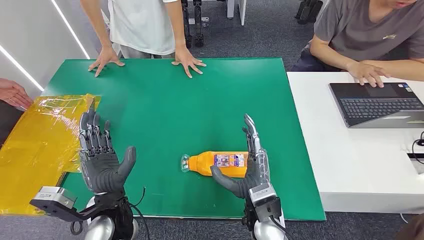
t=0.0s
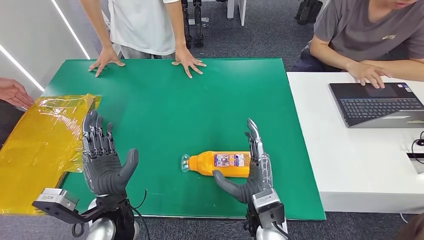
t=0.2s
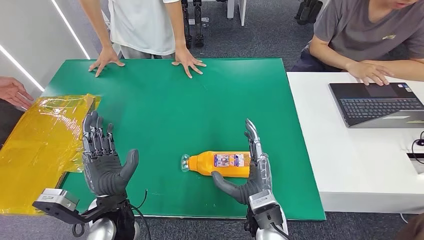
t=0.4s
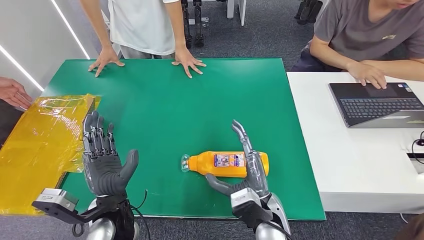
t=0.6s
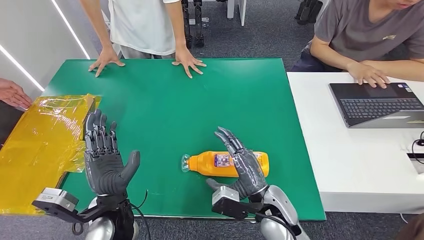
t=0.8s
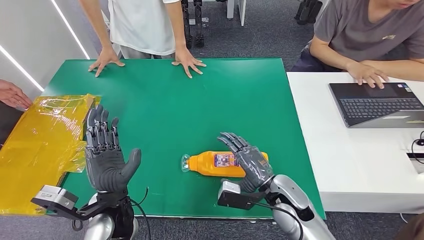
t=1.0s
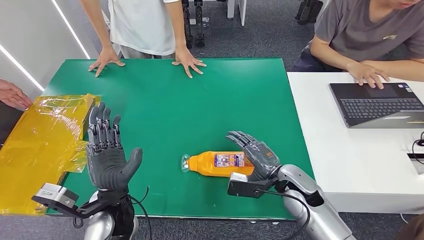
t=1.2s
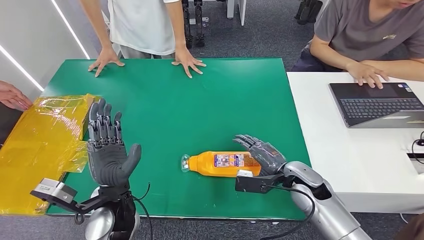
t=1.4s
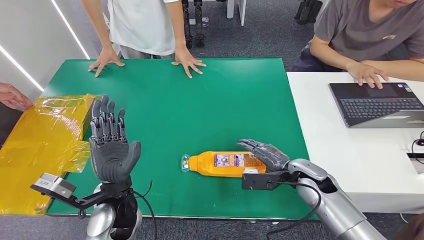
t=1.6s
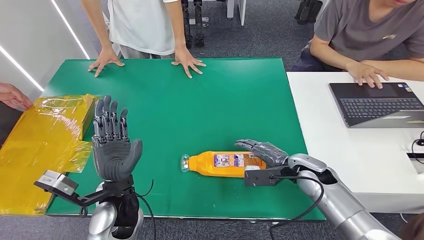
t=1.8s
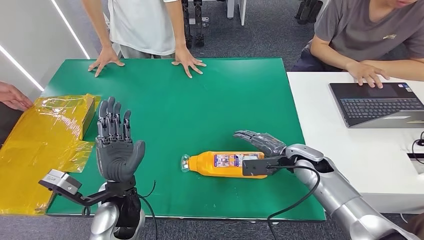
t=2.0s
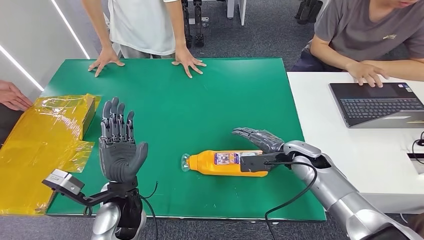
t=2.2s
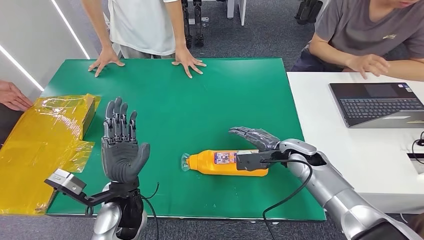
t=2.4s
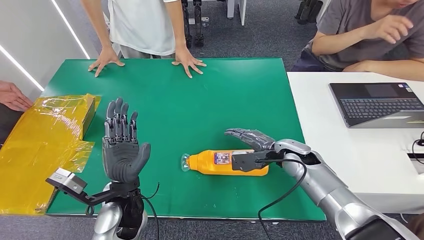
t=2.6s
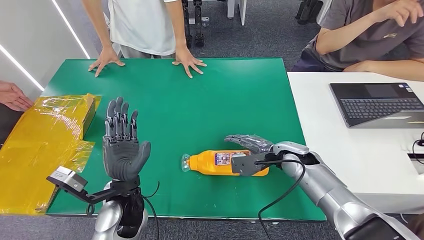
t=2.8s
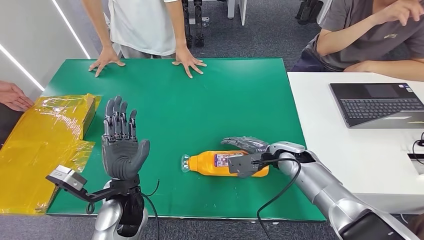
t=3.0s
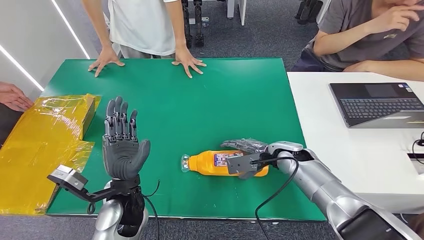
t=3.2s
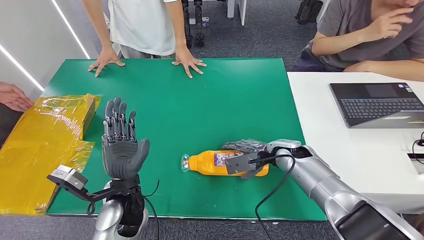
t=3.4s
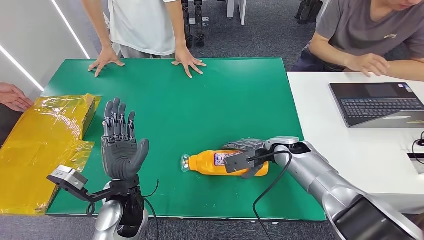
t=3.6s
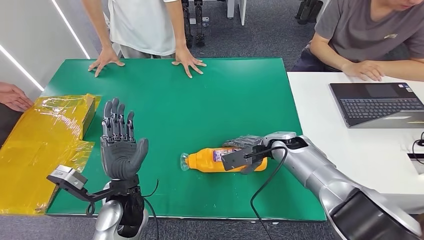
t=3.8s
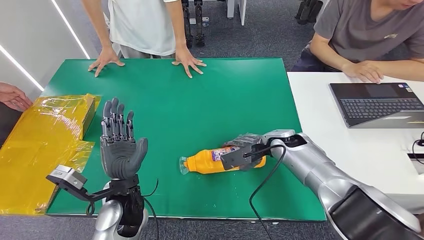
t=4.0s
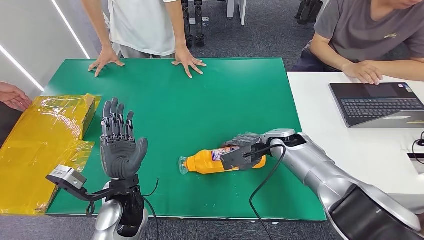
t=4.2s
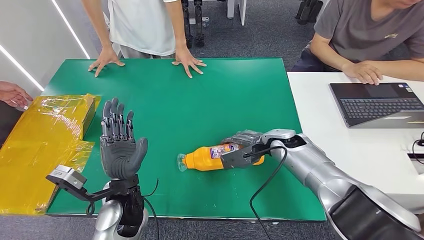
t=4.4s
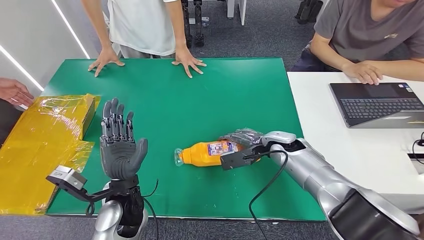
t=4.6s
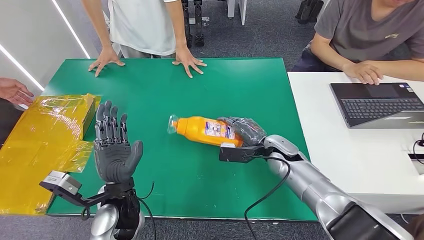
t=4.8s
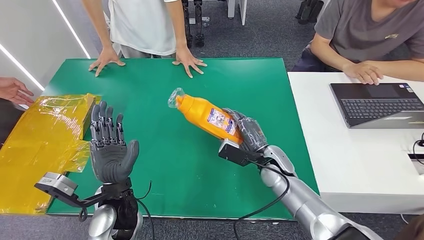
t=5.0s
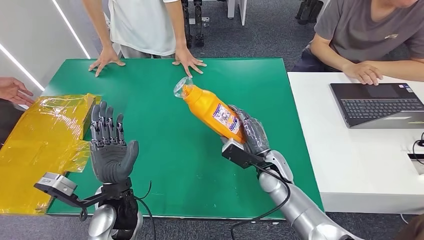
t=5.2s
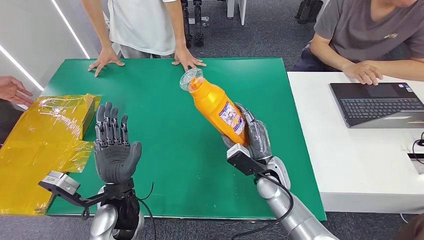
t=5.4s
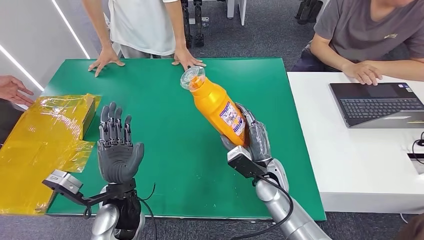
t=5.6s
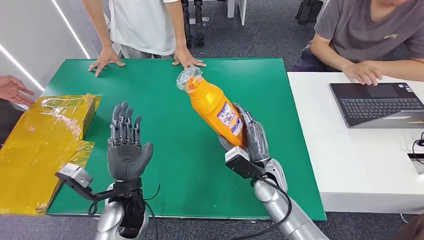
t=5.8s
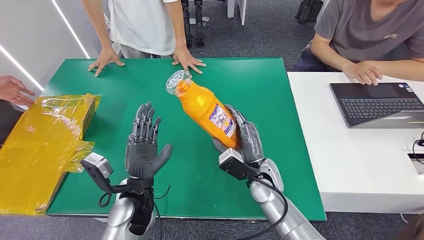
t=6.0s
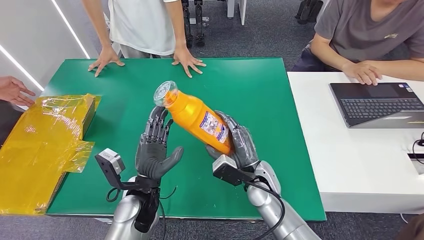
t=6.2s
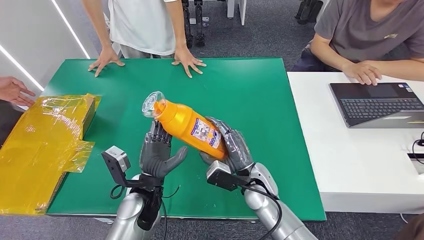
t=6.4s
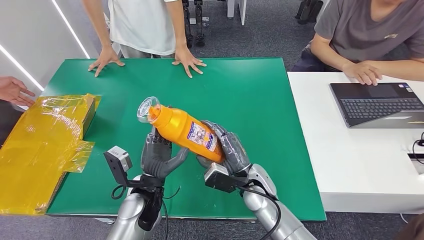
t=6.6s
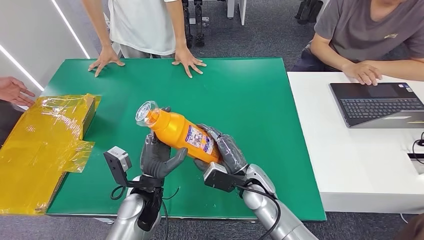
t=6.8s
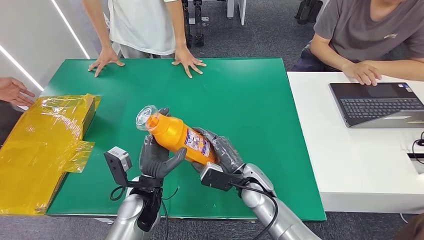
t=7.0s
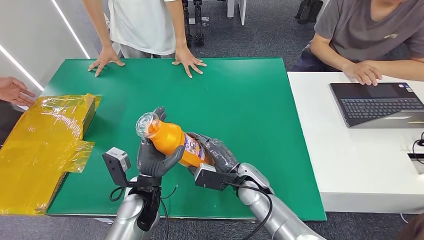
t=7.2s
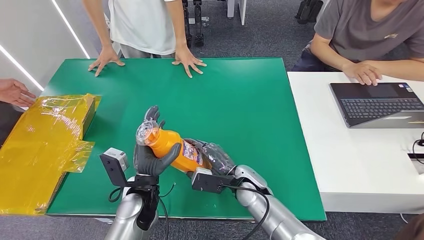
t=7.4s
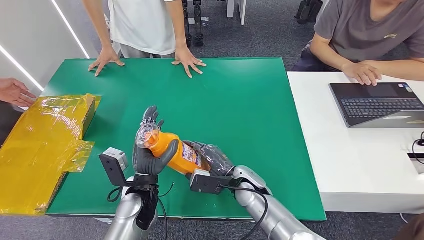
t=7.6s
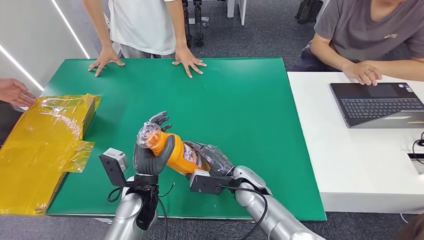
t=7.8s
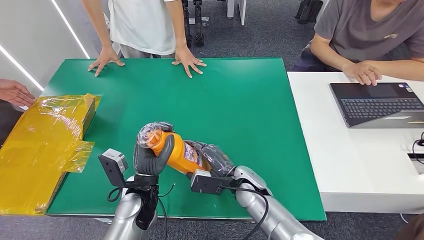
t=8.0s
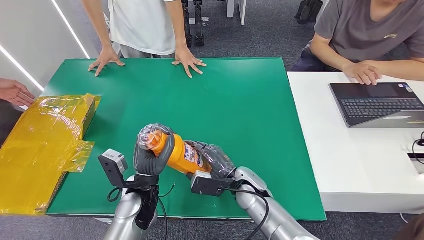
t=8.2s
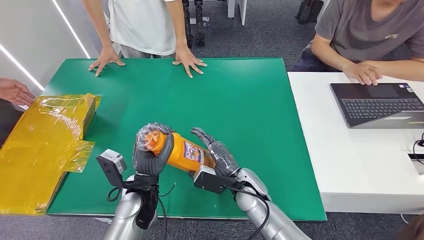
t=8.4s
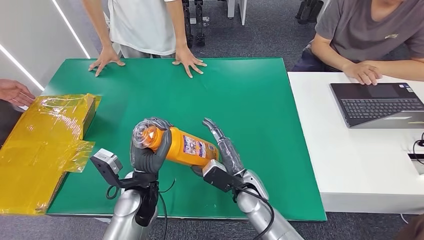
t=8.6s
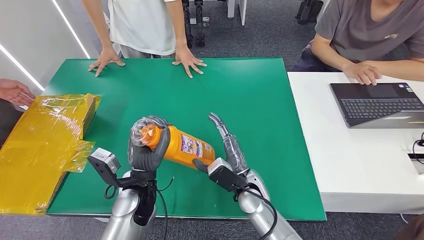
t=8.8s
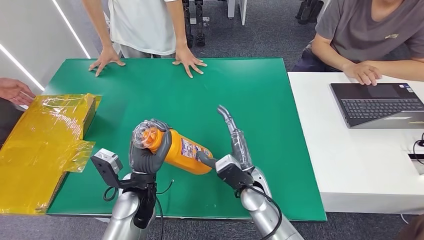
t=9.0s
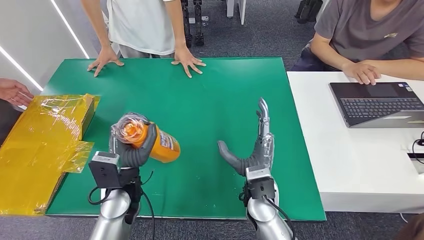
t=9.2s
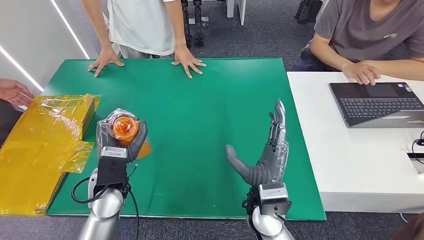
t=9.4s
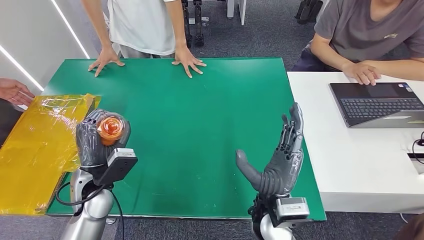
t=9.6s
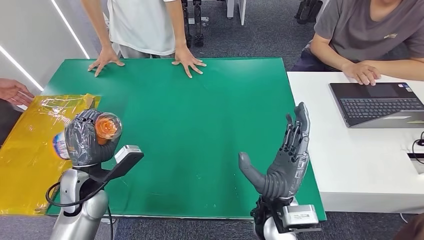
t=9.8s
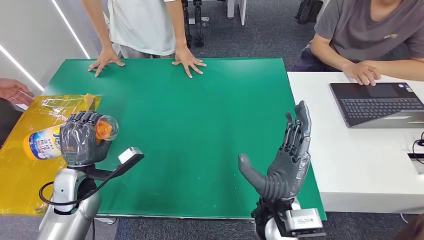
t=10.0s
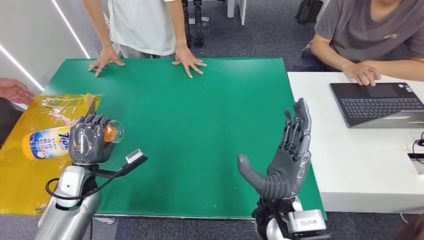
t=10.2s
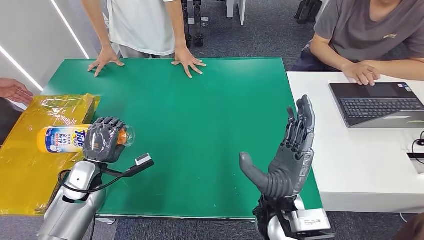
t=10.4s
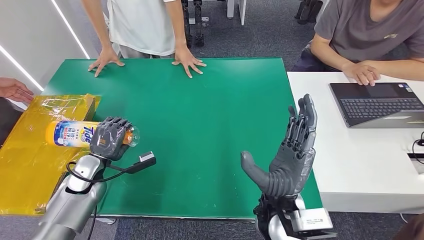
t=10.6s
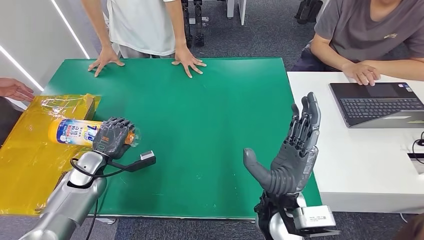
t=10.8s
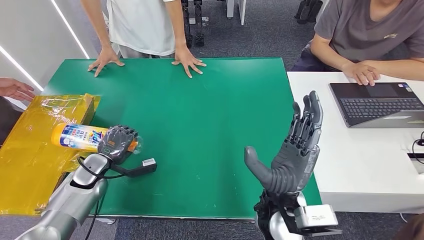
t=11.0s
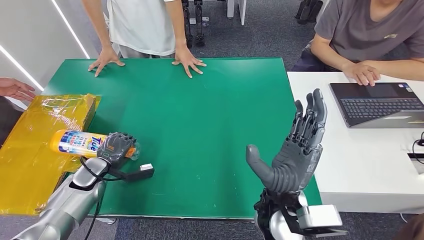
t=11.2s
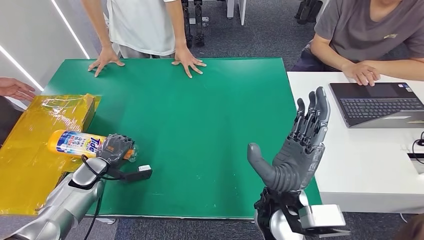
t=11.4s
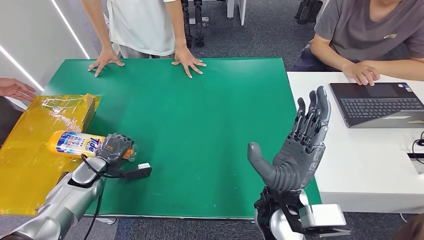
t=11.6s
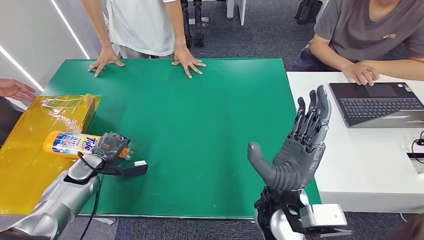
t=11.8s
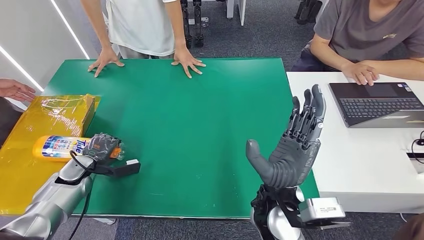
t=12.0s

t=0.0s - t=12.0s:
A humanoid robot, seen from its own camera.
Step, t=0.0s - t=7.4s: Pick up the bottle from the table.
t=1.6s - t=3.0s: The right hand moves forward, about 5 cm.
t=3.0s - t=4.4s: The hands move only a little.
t=4.4s - t=6.0s: The right hand moves backward and to the left, approximately 10 cm.
t=10.4s - t=12.0s: The left hand travels to the left by approximately 10 cm.

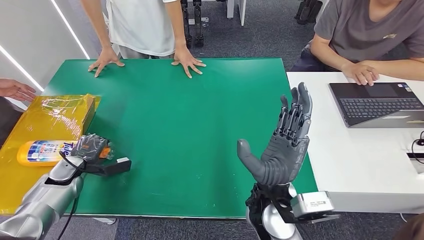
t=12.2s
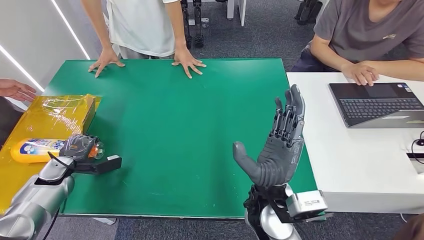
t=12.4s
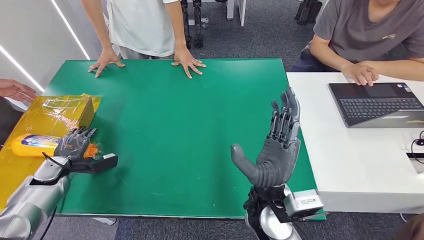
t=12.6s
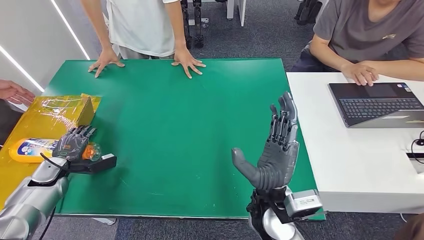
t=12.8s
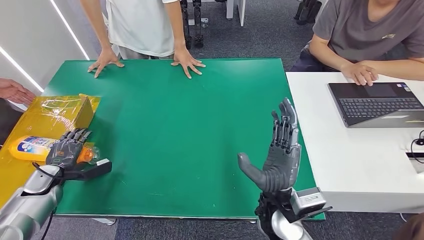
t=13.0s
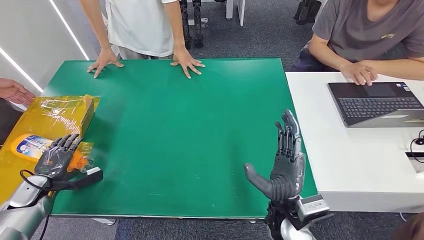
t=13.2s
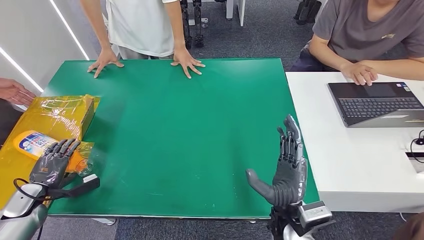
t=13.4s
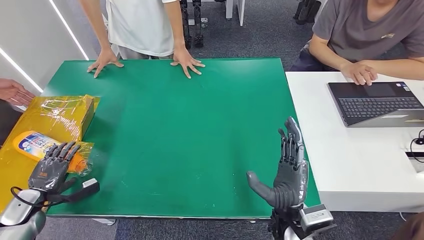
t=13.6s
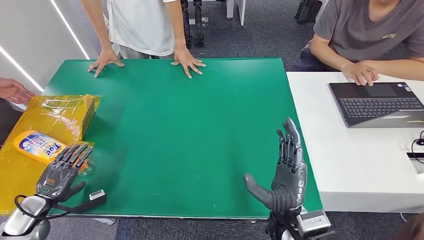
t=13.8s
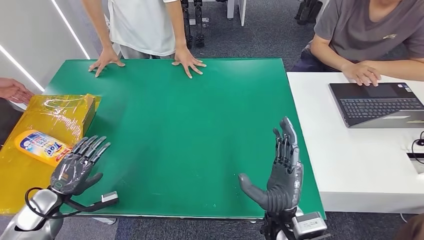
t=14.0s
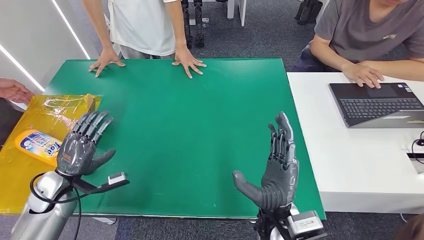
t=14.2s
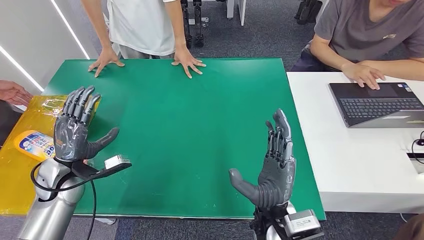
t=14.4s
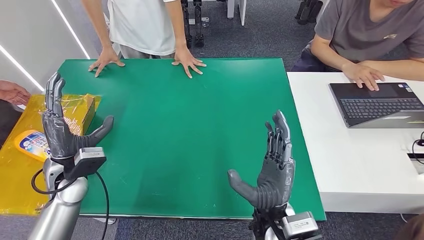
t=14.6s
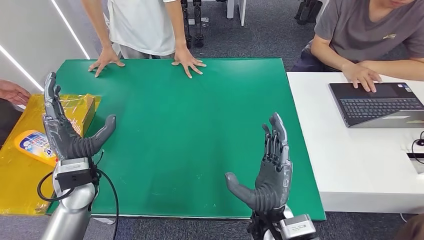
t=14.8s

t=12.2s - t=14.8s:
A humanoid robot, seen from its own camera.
Step, t=12.2s - t=14.8s: Turn the bottle to the front side.
t=12.2s - t=13.4s: The right hand moves downward and to the right, some 10 cm. Meanwhile the left hand travels to the left and backward by approximately 10 cm.
t=13.4s - t=14.8s: The left hand moves to the right and upward, some 25 cm, while the right hand moves about 5 cm.

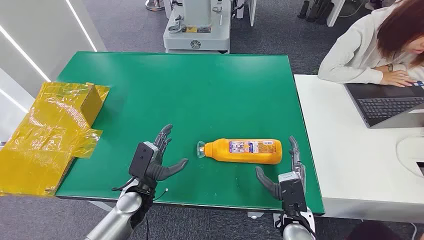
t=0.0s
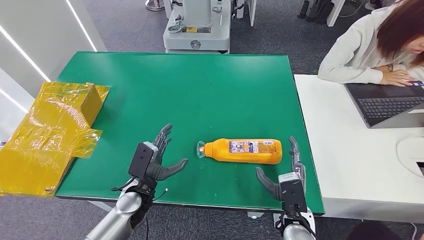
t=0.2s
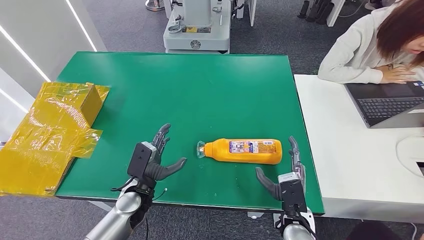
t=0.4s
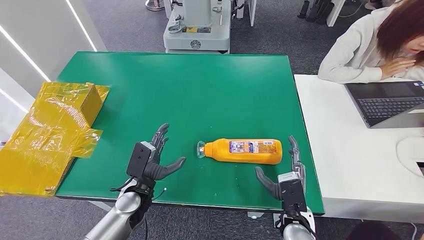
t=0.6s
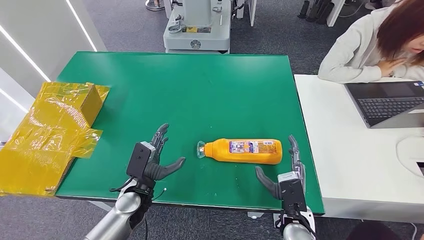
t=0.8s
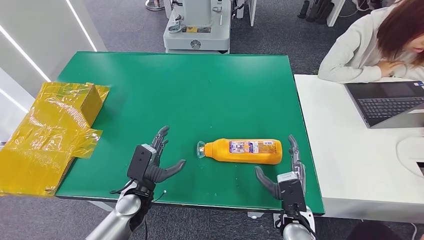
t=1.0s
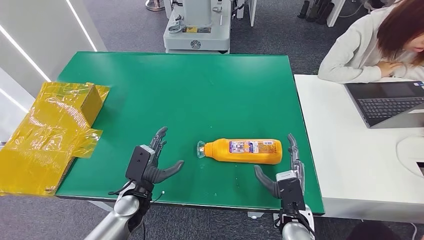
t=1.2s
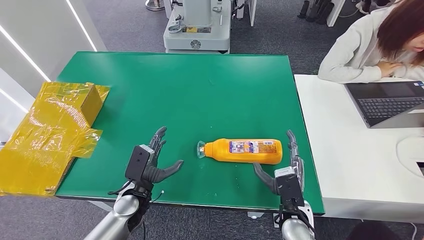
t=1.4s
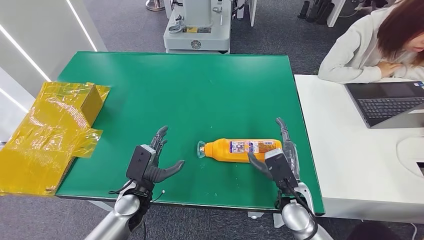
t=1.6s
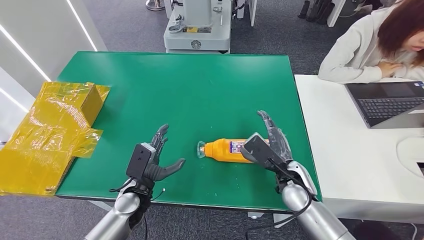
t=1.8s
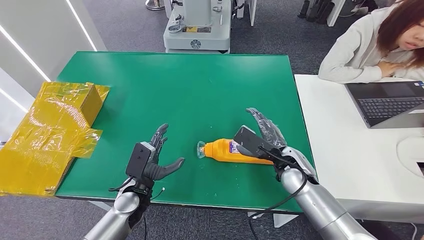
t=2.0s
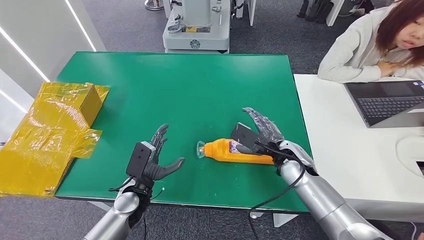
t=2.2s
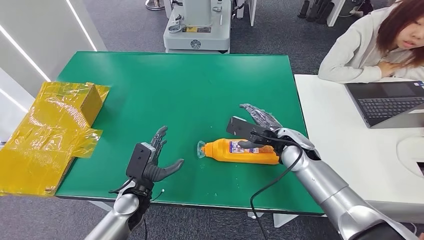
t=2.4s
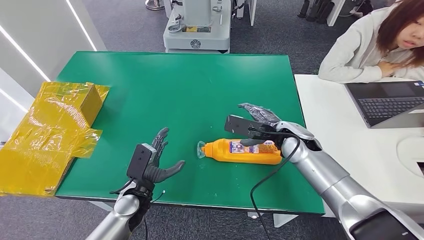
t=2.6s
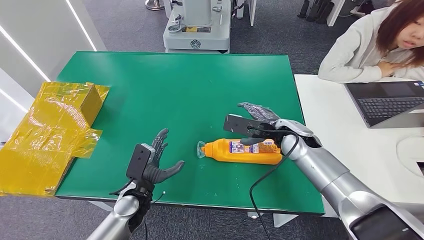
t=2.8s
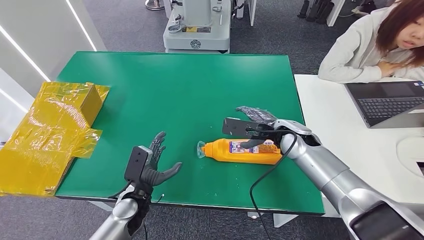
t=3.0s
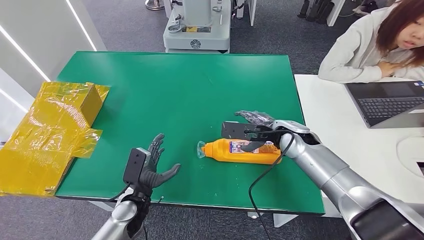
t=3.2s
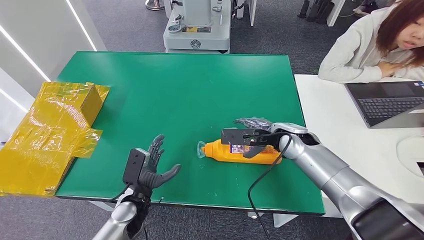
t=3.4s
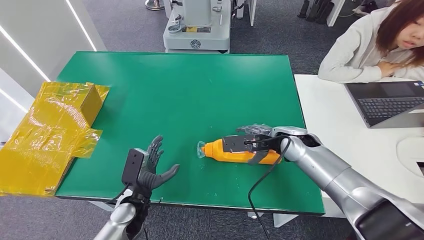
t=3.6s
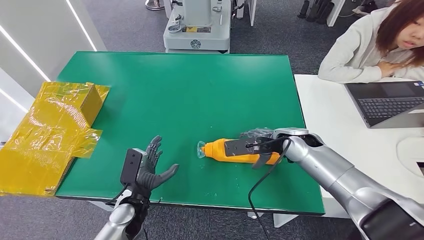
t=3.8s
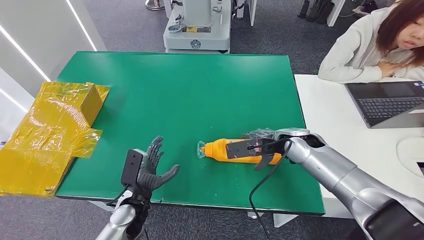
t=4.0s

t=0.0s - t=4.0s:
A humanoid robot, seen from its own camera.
t=1.4s - t=2.6s: The right hand moves forward and upward, some 20 cm.
